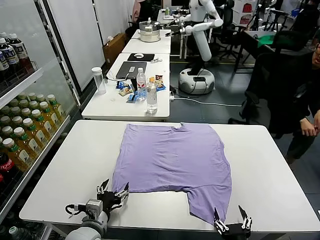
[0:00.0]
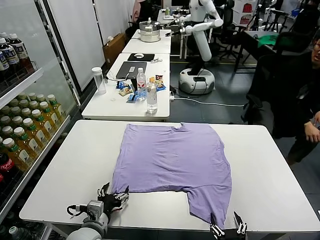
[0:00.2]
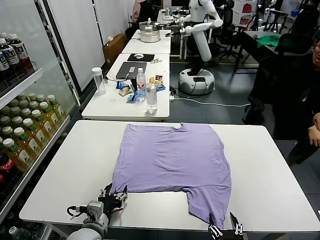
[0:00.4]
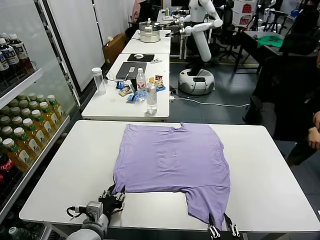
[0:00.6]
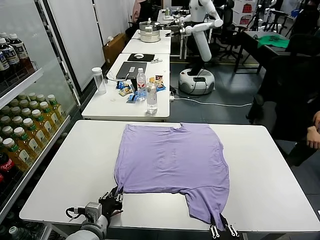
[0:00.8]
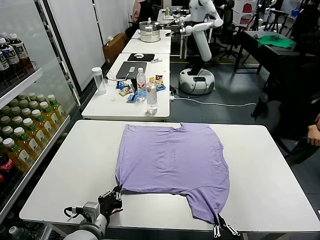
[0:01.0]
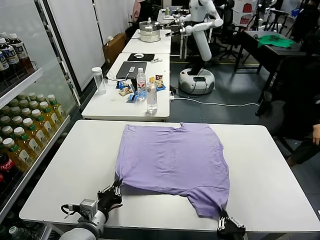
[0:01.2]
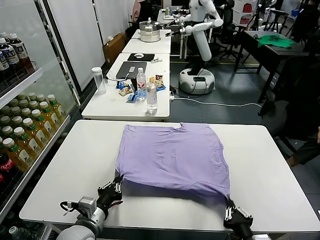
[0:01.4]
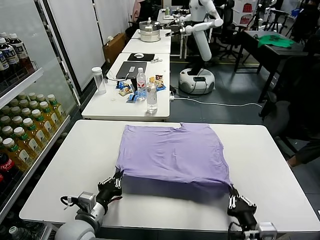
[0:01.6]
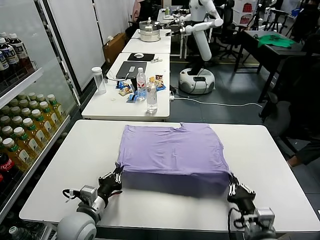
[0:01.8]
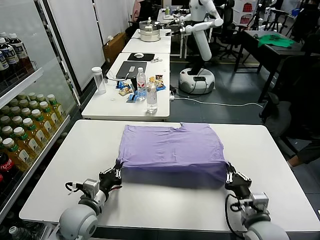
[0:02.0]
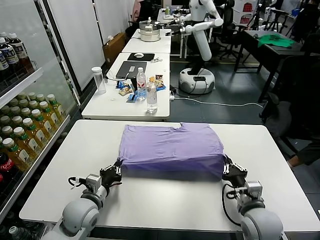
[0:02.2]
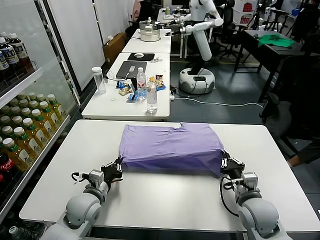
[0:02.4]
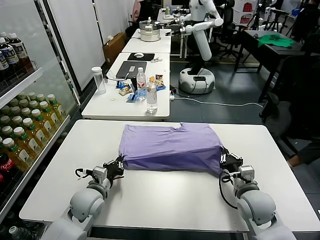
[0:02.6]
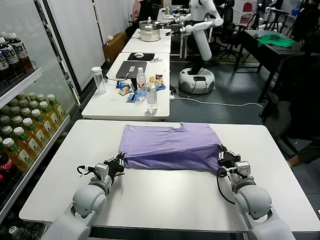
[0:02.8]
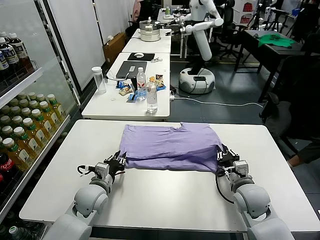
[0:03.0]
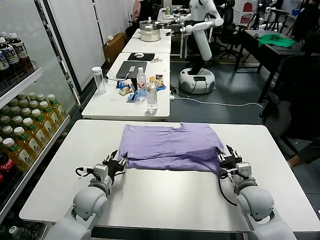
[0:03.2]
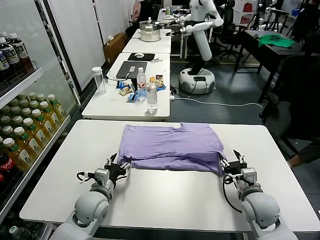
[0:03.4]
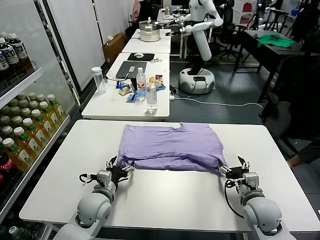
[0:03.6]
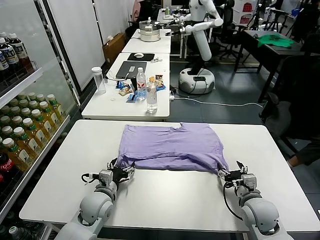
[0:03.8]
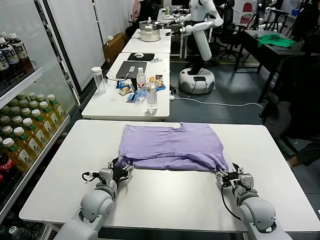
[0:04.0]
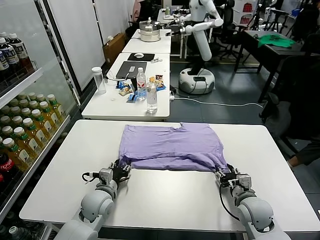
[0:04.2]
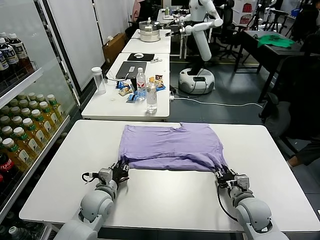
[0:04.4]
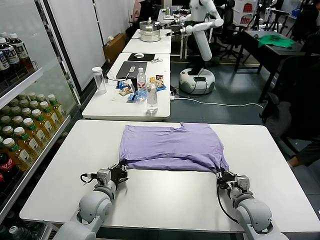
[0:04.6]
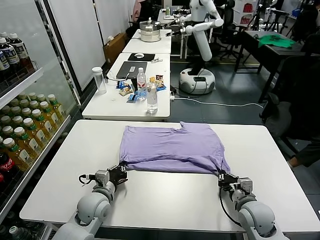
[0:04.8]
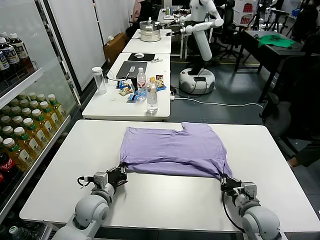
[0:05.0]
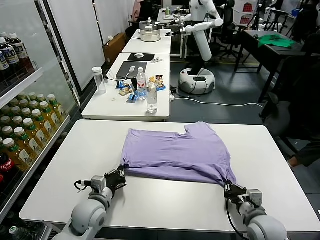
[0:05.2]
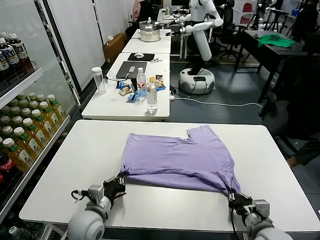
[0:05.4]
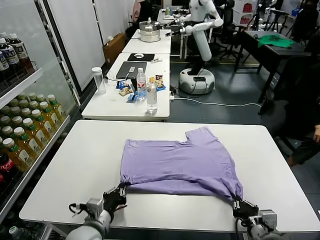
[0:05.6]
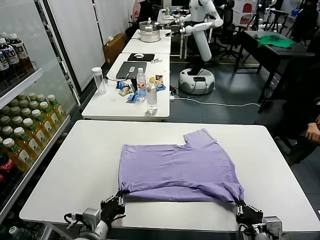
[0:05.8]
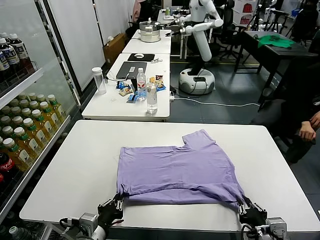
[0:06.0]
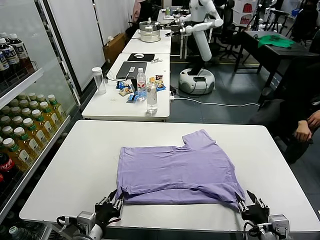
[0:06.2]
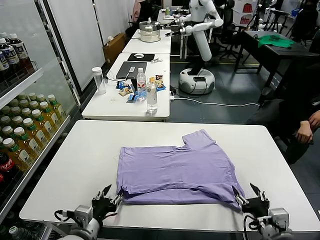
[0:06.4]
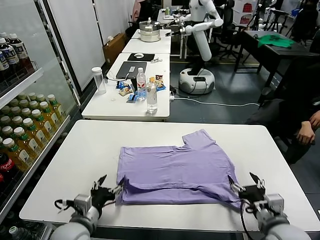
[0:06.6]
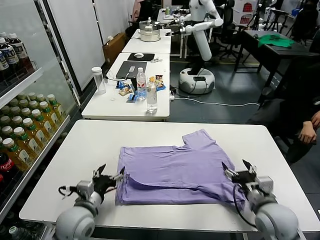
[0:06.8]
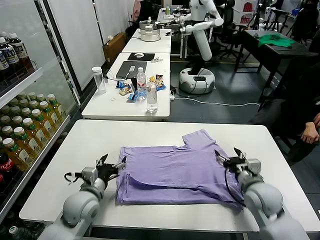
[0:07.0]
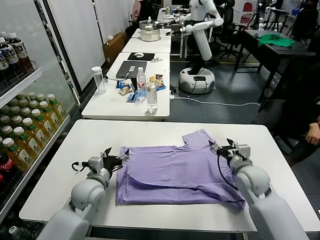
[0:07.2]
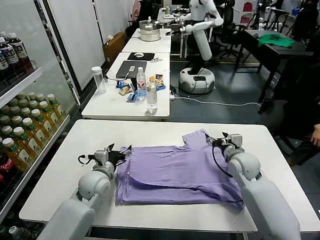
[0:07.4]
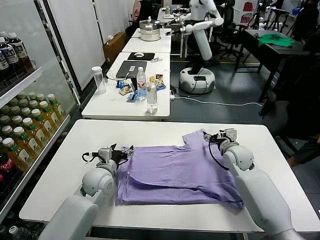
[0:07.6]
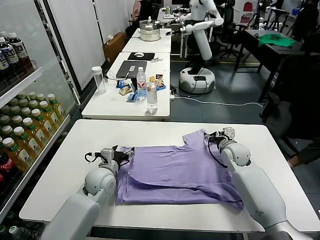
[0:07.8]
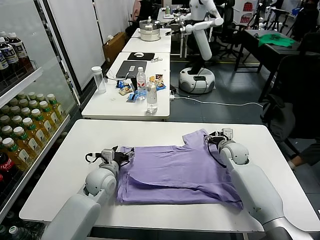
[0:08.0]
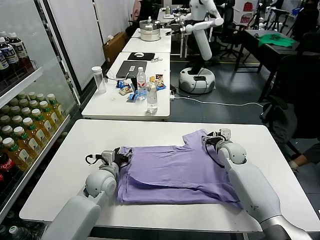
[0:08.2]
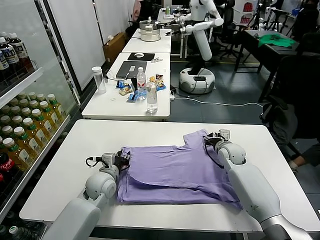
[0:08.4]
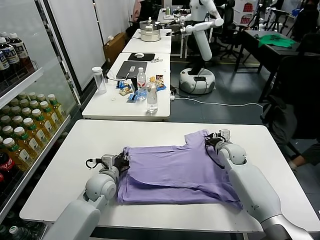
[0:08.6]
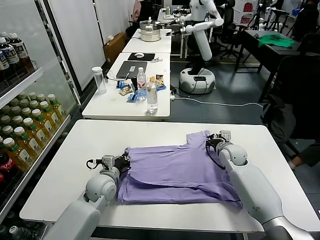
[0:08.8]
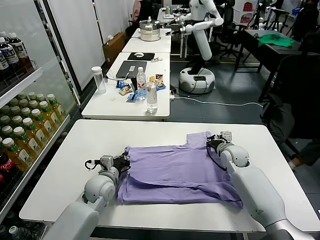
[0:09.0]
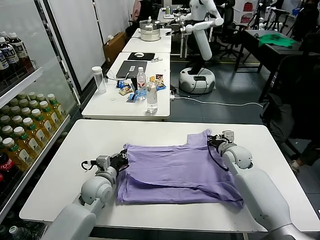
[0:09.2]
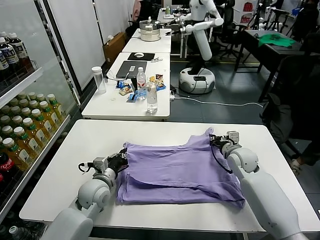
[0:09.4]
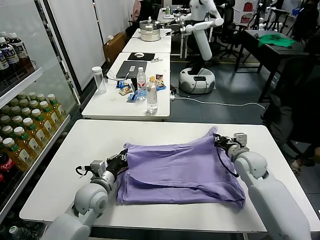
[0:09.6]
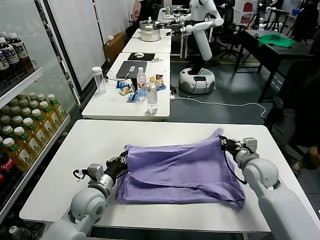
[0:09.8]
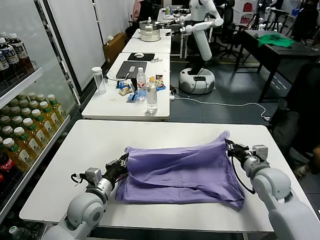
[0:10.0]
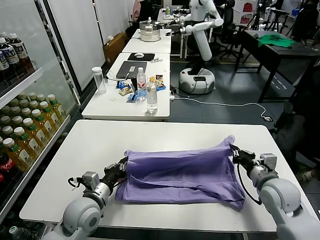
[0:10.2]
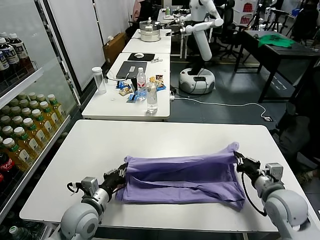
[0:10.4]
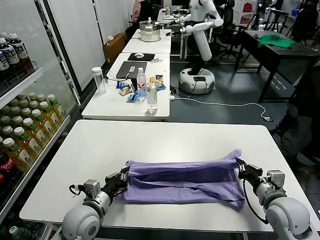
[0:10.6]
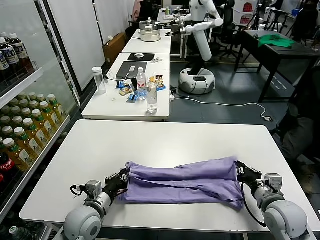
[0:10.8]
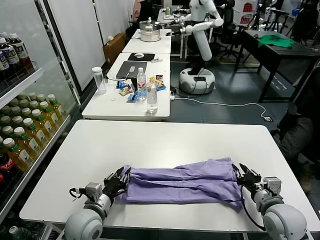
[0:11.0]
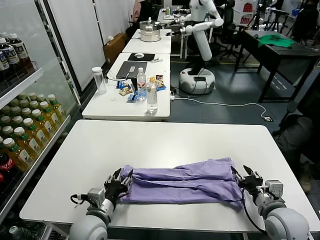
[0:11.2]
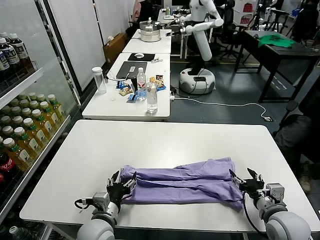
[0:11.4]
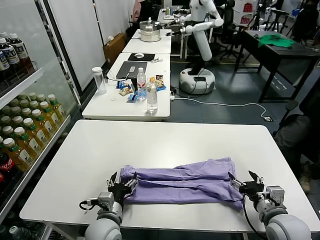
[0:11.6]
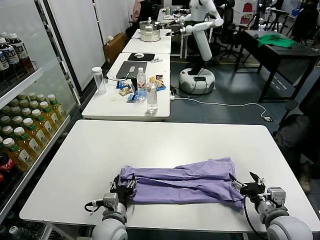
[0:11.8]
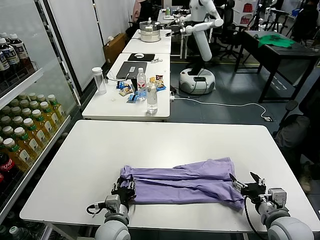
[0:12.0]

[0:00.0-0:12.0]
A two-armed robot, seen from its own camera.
Task of the whole recording: fold and organize the clothes.
Step, 0:00.0 to 0:01.0: use both grippers simultaneously to clamp the lower edge of the clothing fabric.
Step, 0:01.2 to 0:03.2: use both grippers to drag the lower edge of the fabric forward and fold it over the upper edge.
Step, 0:03.4 to 0:06.2: Drag the clothes downward with both gripper.
Step, 0:06.6 to 0:08.6: use both grippers simultaneously to clamp the upper edge of the clothing fabric.
Step, 0:09.0 to 0:11.0: use both grippers to drag the upper edge of the fabric backward and fold it over the lower edge.
0:01.6 to 0:03.0: Both grippers travel together forward, roughly 10 cm. The right gripper opens its fingers, while the left gripper opens.
0:03.0 to 0:04.4: The right gripper shifts by approximately 5 cm, and closes. The left gripper opens and closes again.
0:04.4 to 0:06.0: The right gripper shifts roughly 15 cm backward and upward, and opens its fingers; the left gripper goes some 15 cm backward.
0:06.0 to 0:07.6: The right gripper shifts roughly 35 cm forward, and opens up; the left gripper moves forward, some 25 cm, and opens up.
0:07.6 to 0:09.0: The left gripper closes its fingers. Meanwhile the right gripper closes.
0:09.0 to 0:10.4: The right gripper travels backward by roughly 20 cm. The left gripper is displaced backward by some 10 cm.
0:10.4 to 0:12.0: The left gripper goes approximately 10 cm to the right and downward, and opens its fingers; the right gripper travels backward by approximately 5 cm, and opens up.

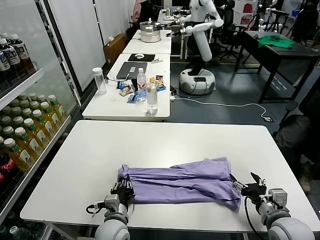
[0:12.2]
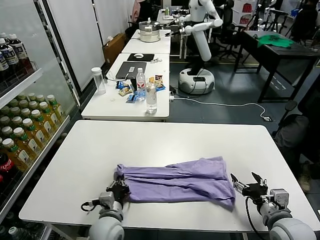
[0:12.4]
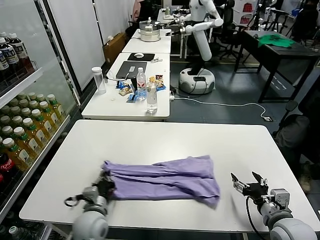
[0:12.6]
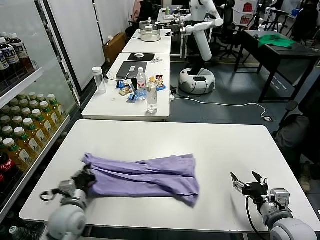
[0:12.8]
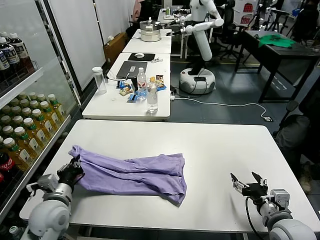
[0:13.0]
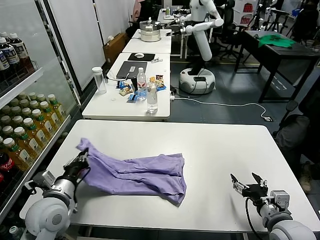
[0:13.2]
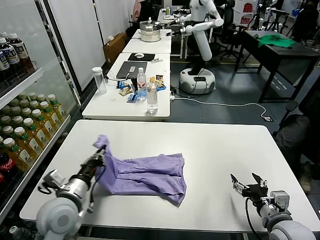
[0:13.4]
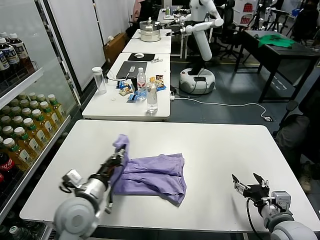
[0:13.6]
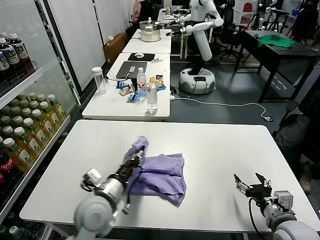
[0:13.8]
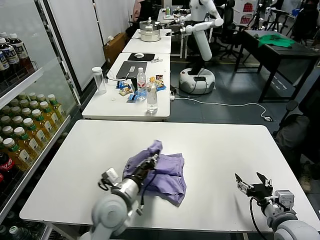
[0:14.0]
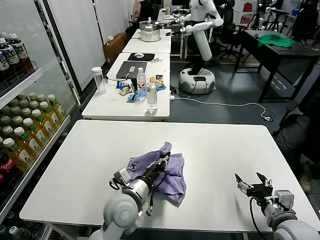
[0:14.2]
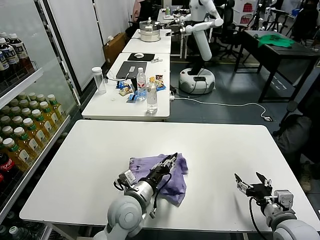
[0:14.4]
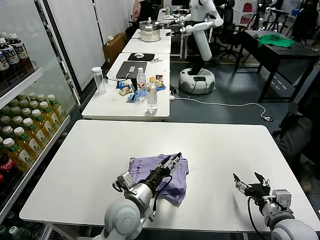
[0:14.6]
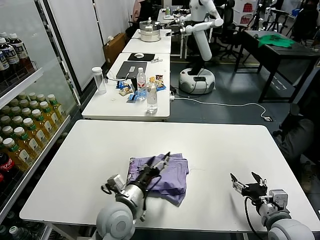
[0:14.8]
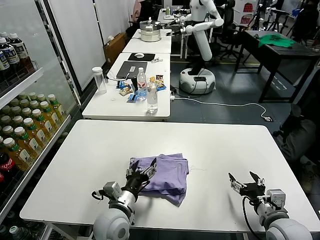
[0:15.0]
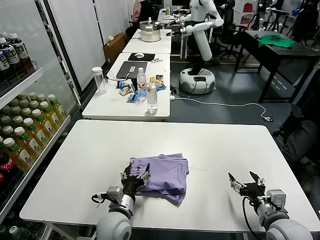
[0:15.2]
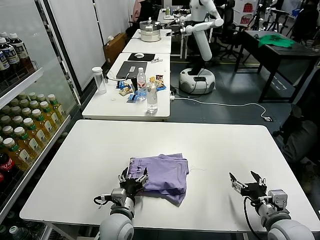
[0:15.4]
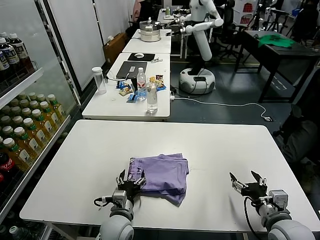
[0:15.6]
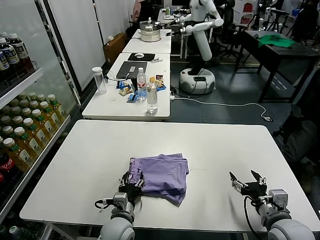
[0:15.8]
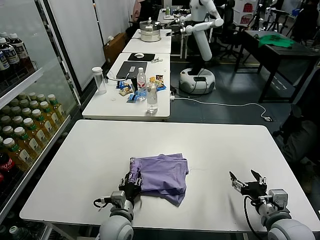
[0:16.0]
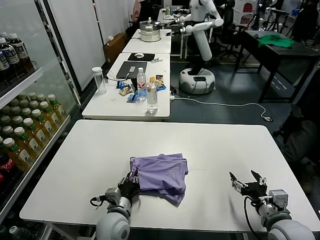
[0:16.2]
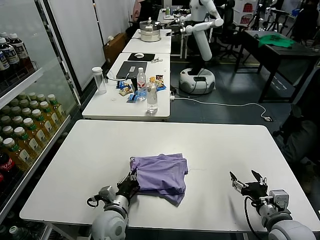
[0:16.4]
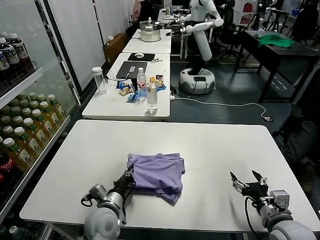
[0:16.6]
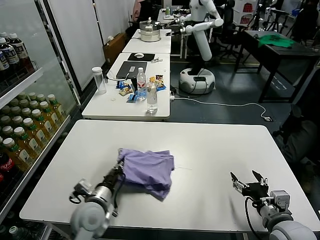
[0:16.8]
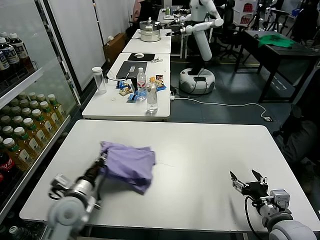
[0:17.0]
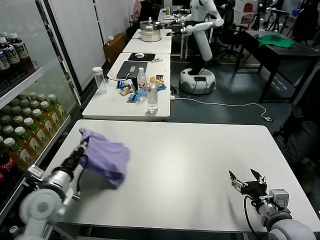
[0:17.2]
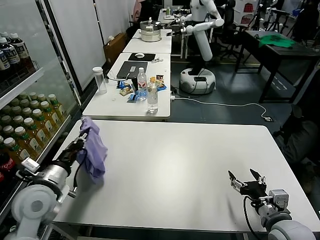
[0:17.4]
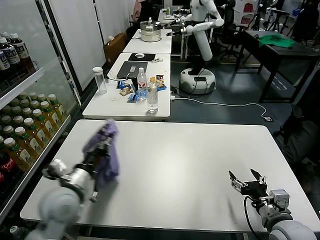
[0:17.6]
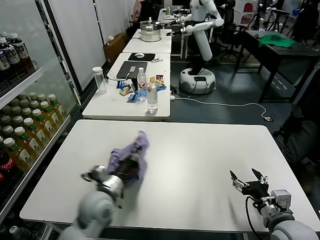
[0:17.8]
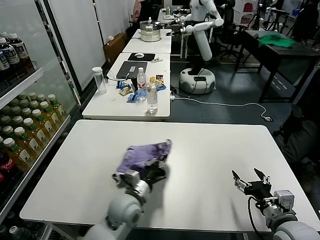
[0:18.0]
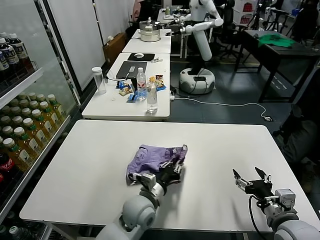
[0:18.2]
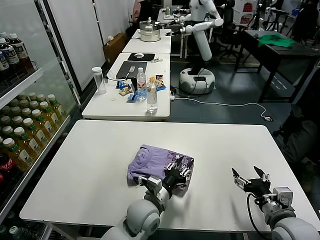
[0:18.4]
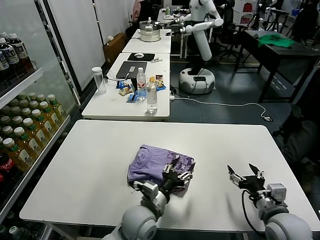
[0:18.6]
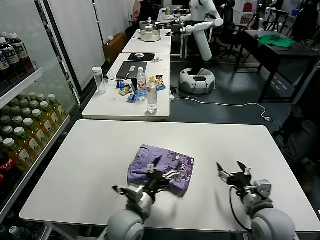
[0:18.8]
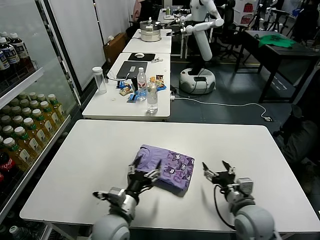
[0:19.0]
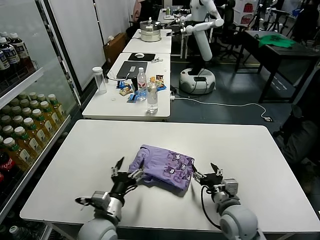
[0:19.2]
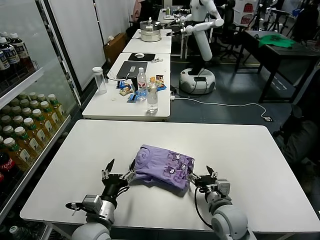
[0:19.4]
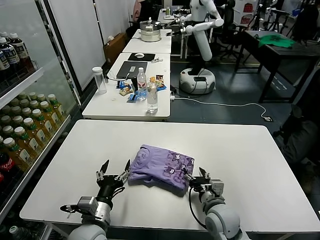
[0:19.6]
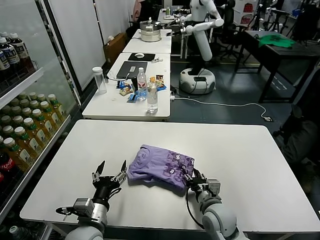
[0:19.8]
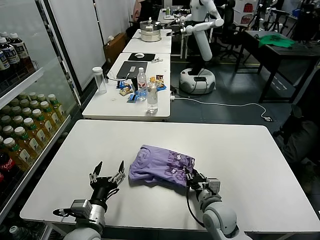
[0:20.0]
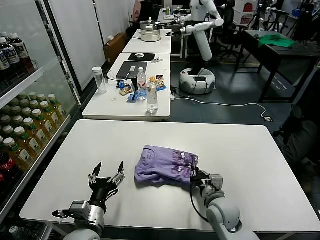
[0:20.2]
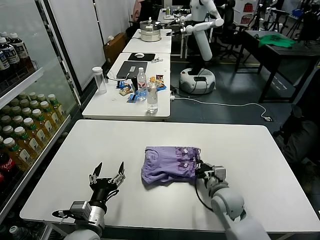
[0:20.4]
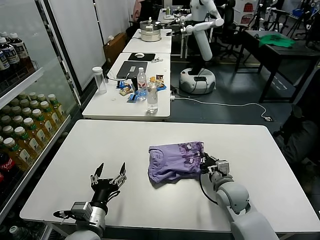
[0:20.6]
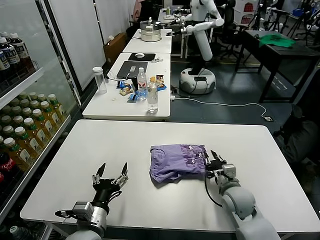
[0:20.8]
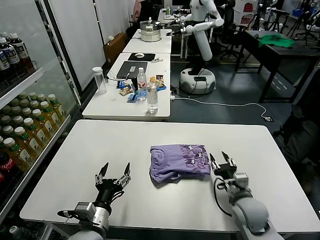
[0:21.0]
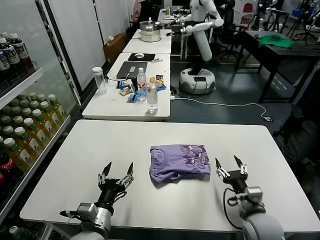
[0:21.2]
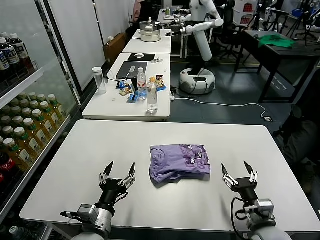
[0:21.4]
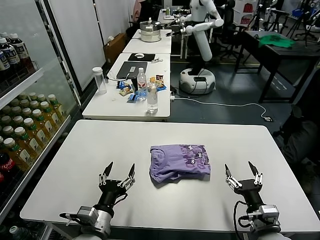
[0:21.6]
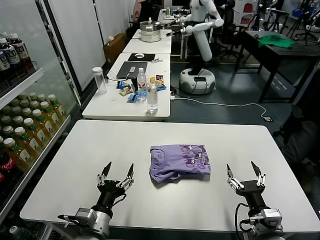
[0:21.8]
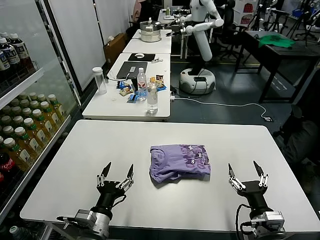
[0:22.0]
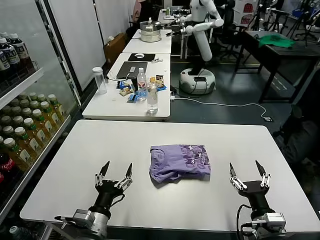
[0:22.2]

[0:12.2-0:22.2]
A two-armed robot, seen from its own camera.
Task of the whole recording: fold and organize the clothes.
Step, 0:12.8 to 0:14.4: use the left gripper to drag the left edge of the fabric to the left and folds it over the right edge.
Step, 0:14.6 to 0:18.6: Flip the folded clothes over with left gripper.
Step, 0:18.8 to 0:20.6: Drag the clothes to the center of the table.
0:12.2 to 0:13.6: The left gripper moves upward and to the left, approximately 15 cm.
0:13.6 to 0:15.0: The left gripper goes roughly 10 cm to the right and downward, and opens up.
0:15.0 to 0:16.4: The left gripper shifts by some 5 cm, and closes up.
0:16.4 to 0:18.0: The left gripper goes to the left and returns, some 15 cm each way.
0:18.0 to 0:19.4: The right gripper goes roughly 15 cm to the left, forward and downward. Meanwhile the left gripper heads backward and to the left, covering some 10 cm, and opens up.
0:19.4 to 0:20.8: The right gripper is displaced forward by about 5 cm, and closes.
0:20.8 to 0:22.2: The right gripper travels backward by some 15 cm, and opens.
